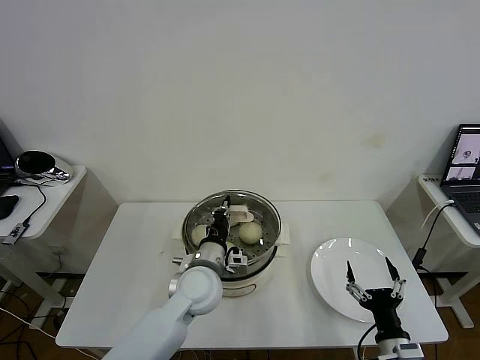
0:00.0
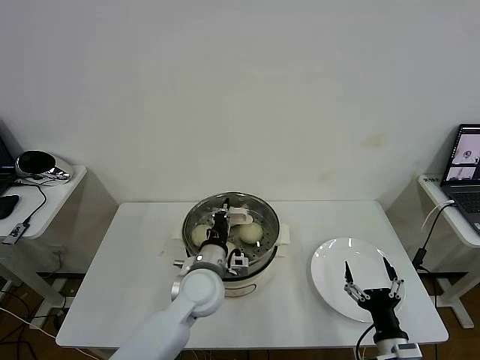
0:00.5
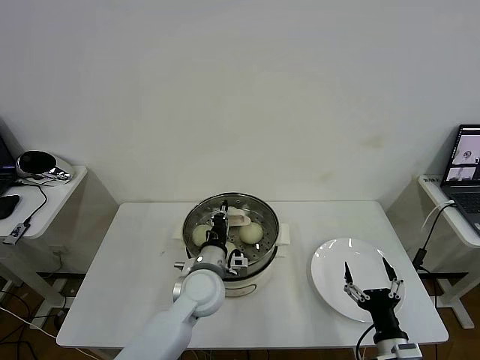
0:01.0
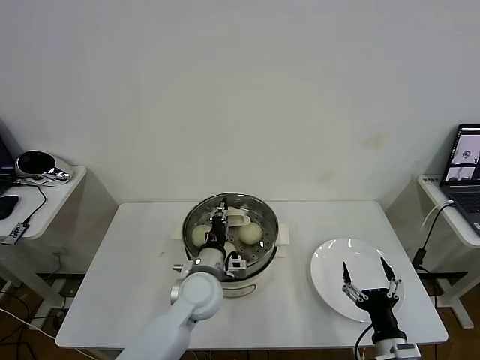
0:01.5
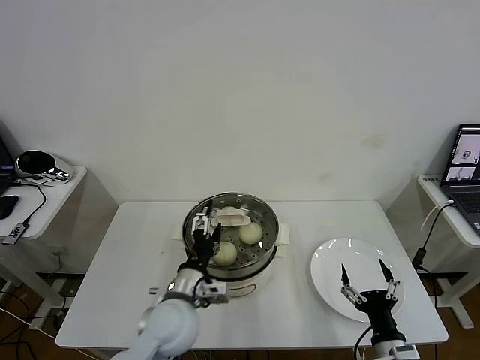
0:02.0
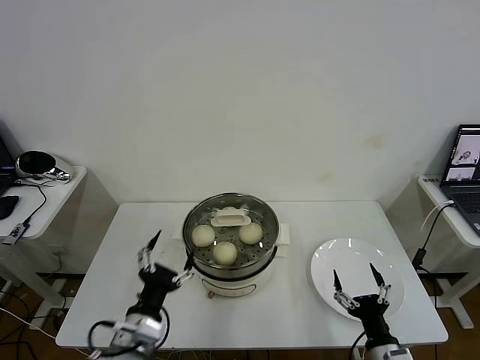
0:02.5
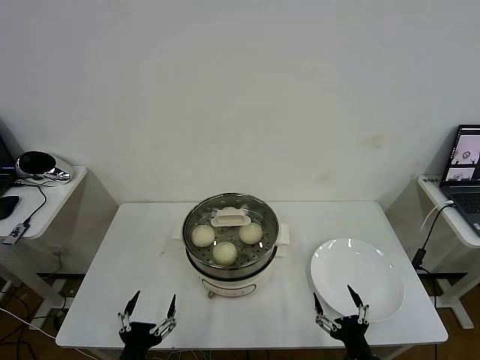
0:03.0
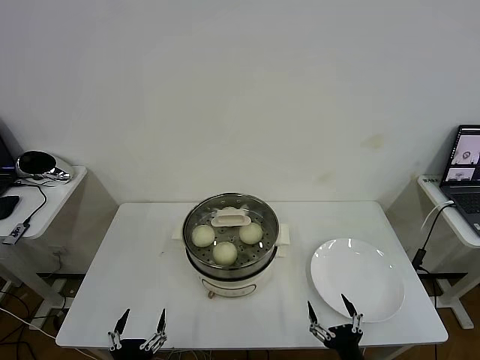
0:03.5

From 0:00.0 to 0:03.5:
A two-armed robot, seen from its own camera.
Task of the whole recording: take steamed baozi put them in steamer then cover it.
From 0:00.0 to 0:02.0: The left gripper is displaced backward by some 5 cm, and opens its fingers.
From 0:02.0 to 0:03.5: The left gripper travels backward, to the left and downward by approximately 25 cm. Meanwhile the right gripper heads backward, covering roughly 5 cm.
